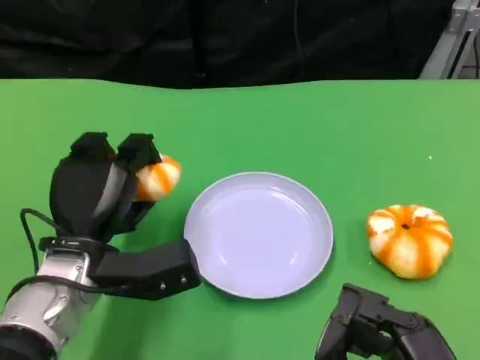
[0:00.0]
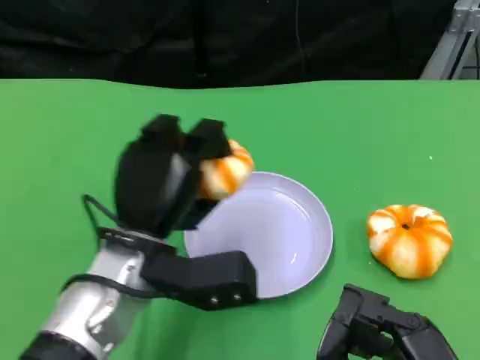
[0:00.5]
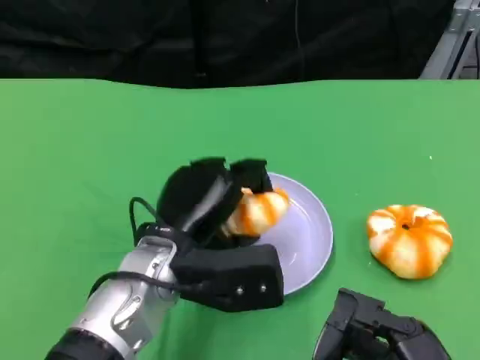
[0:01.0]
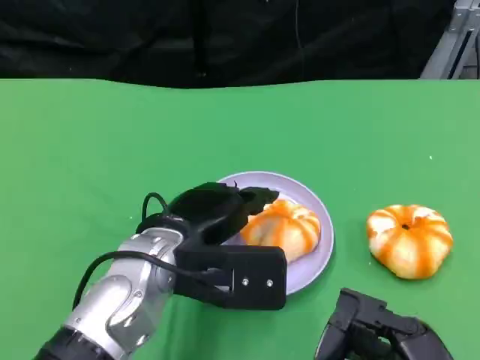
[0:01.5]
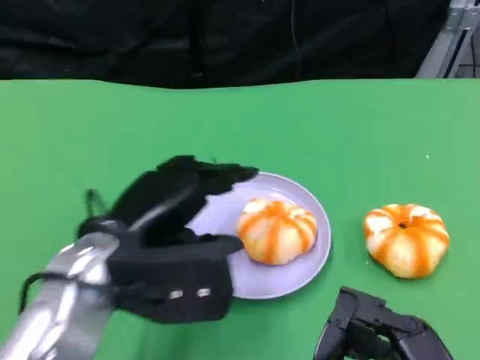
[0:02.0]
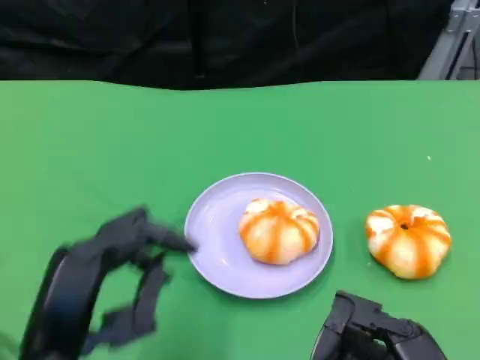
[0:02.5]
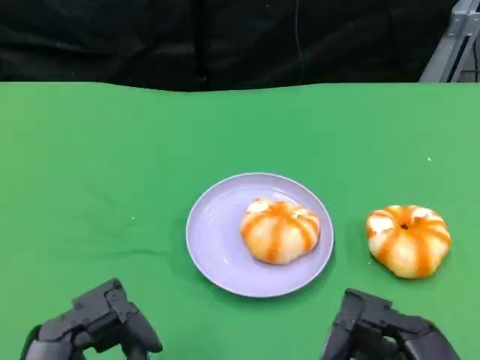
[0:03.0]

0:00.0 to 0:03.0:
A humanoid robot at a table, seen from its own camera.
Task of the whole recording: Grasp the bread from the table and place it into the plate.
0:00.0 to 0:01.5: The left hand goes roughly 5 cm to the right.
0:01.5 to 0:03.0: The left hand travels backward and to the left by some 20 cm.

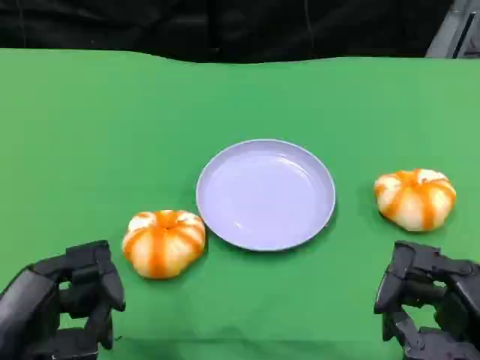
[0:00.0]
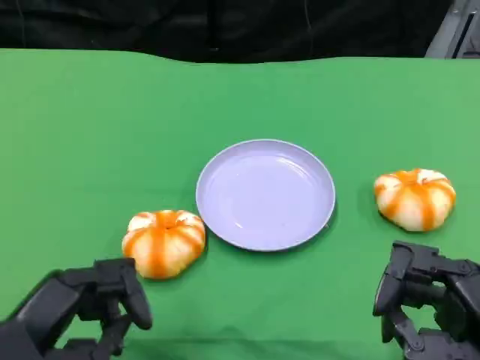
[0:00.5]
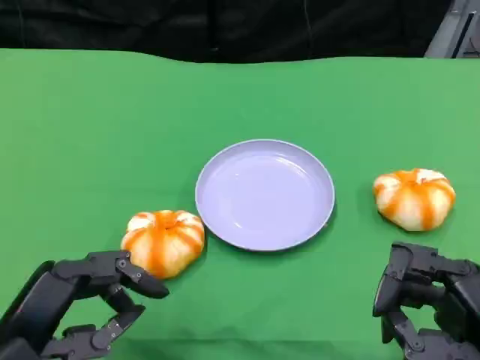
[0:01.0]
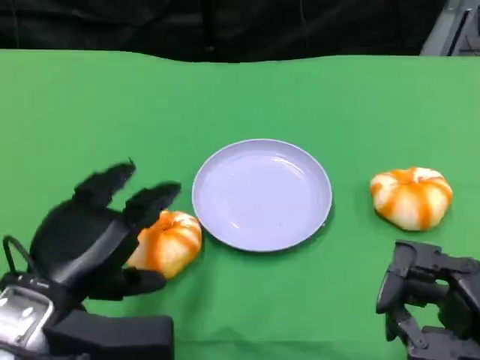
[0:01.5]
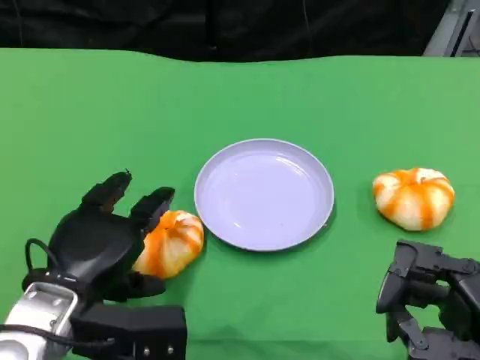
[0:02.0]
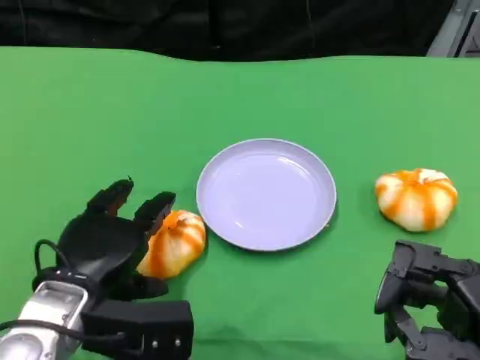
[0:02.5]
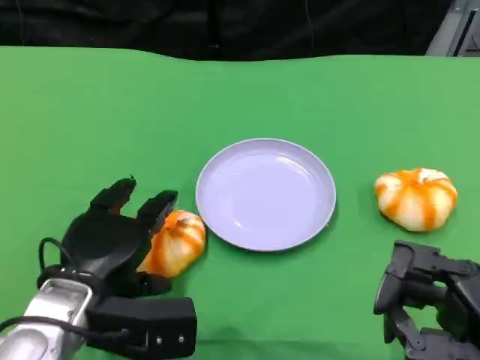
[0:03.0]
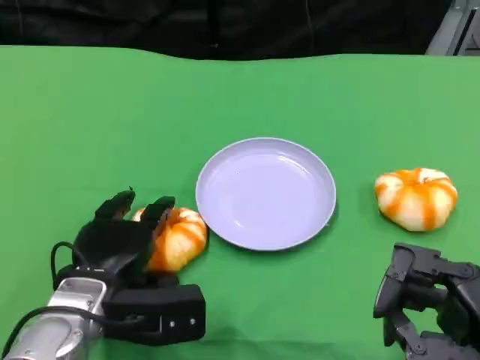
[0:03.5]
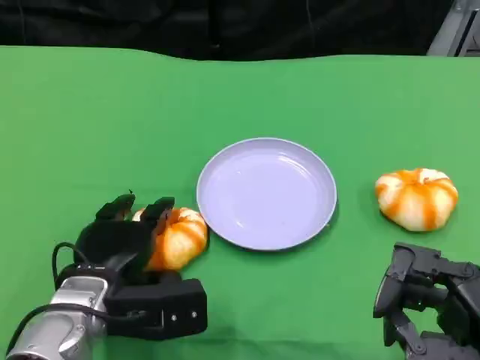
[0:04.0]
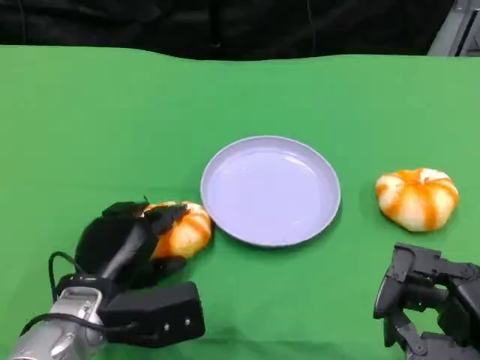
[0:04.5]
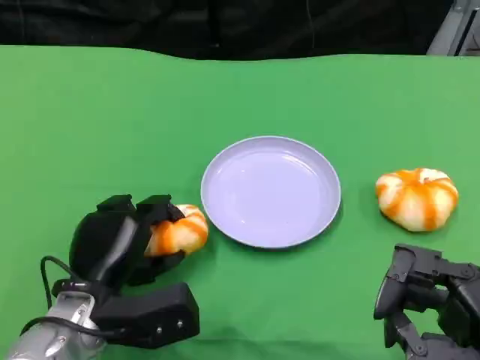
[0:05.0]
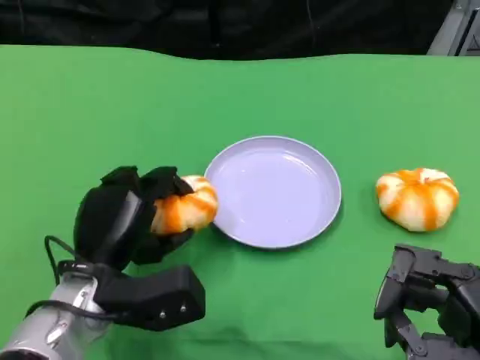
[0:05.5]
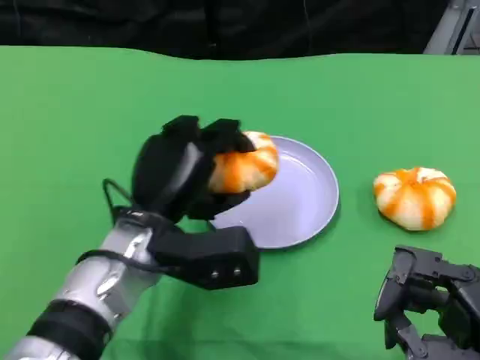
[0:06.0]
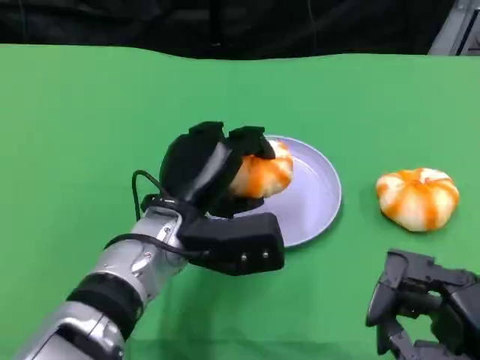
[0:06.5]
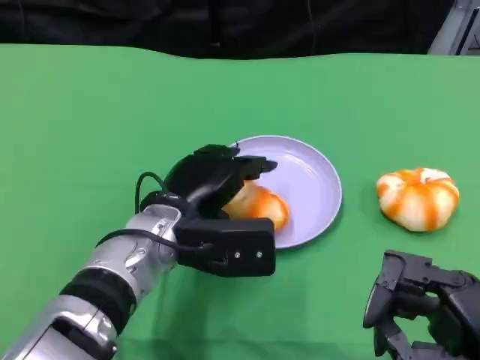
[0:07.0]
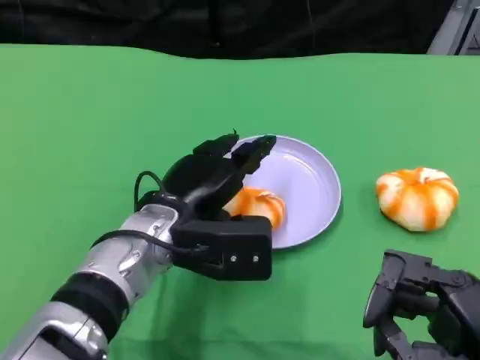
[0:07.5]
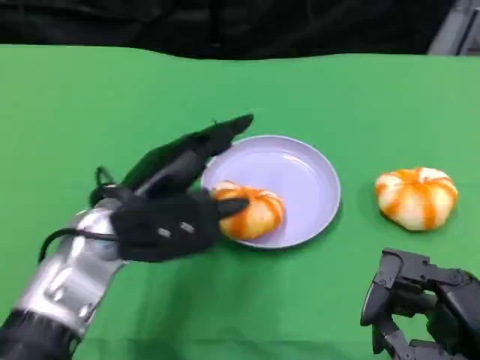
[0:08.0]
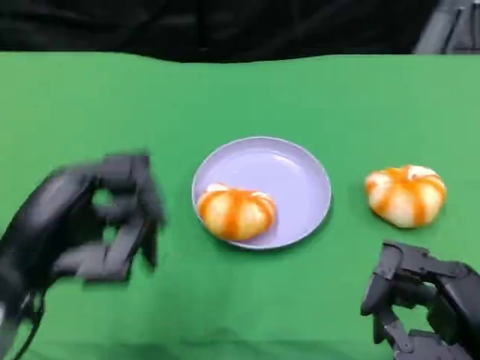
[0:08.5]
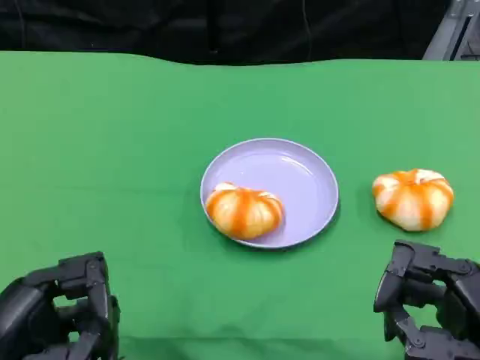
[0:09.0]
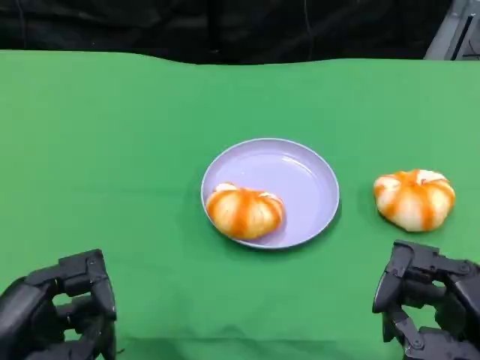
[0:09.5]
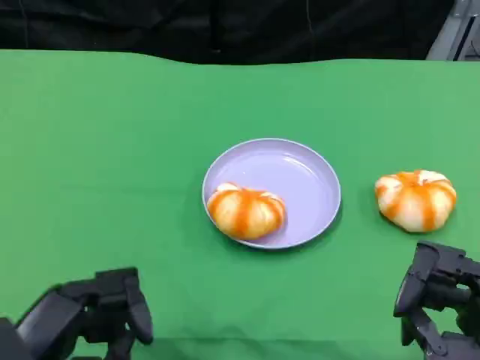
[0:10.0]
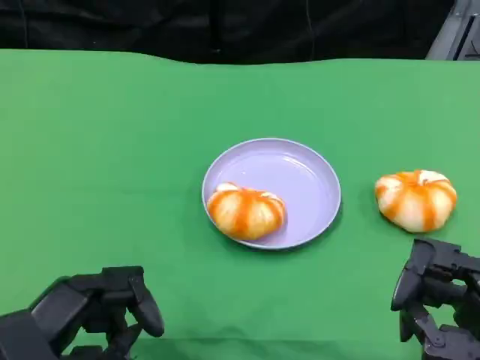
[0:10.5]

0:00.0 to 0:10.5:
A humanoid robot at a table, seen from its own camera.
Task of the whole recording: Grasp the bread from the table and place it into the plate.
0:00.0 to 0:02.0: The left hand heads forward and to the right, covering some 10 cm.
0:02.0 to 0:04.0: The left hand changes place by roughly 5 cm.
0:04.0 to 0:06.5: The left hand heads to the right, covering about 10 cm.
0:06.5 to 0:08.5: The left hand travels to the left, backward and upward by about 20 cm.
0:08.5 to 0:10.5: The left hand moves approximately 5 cm.

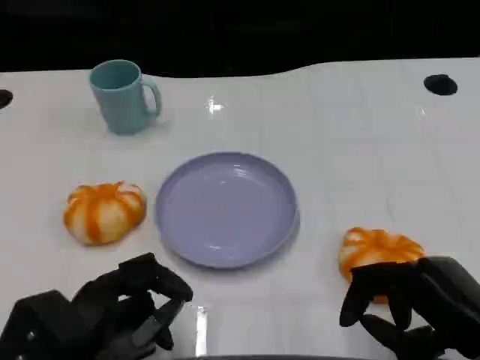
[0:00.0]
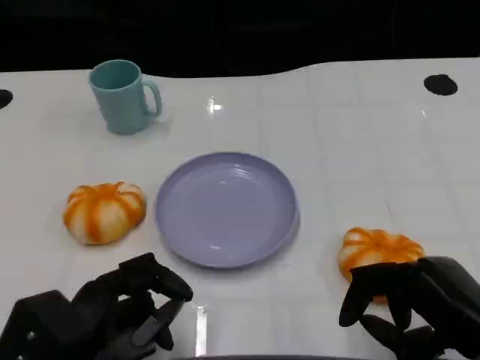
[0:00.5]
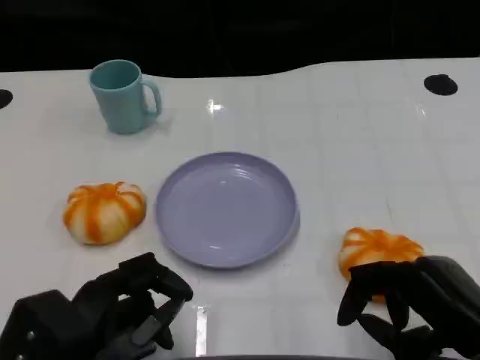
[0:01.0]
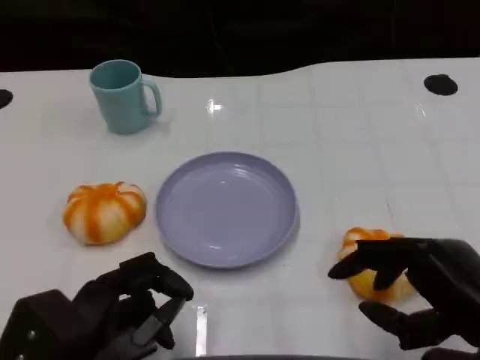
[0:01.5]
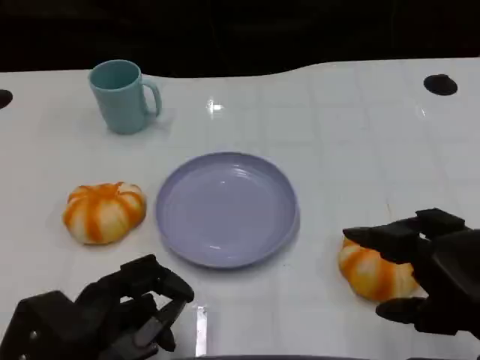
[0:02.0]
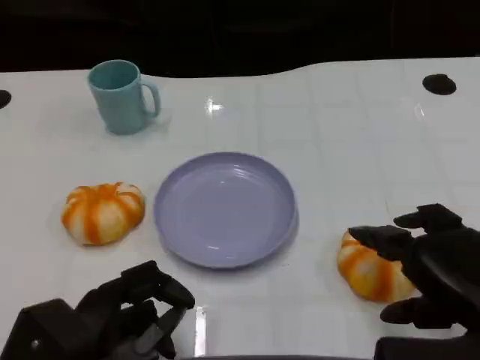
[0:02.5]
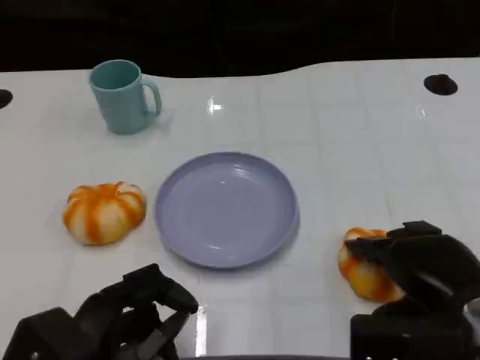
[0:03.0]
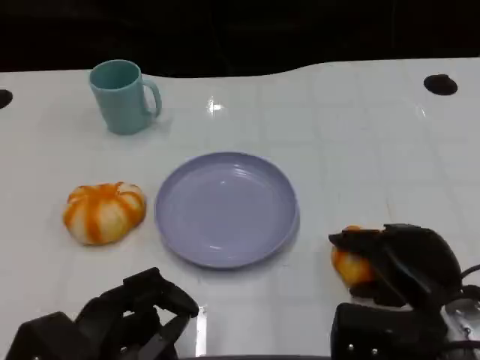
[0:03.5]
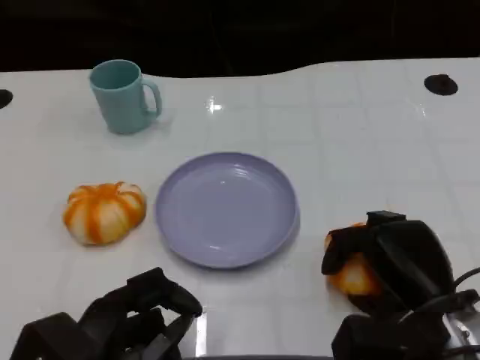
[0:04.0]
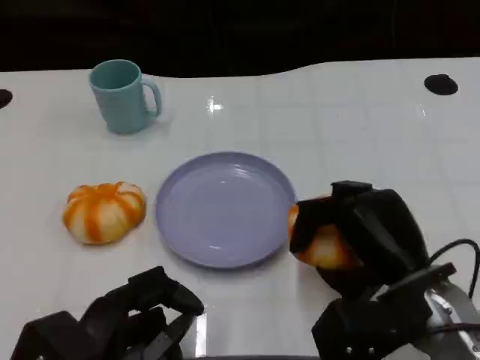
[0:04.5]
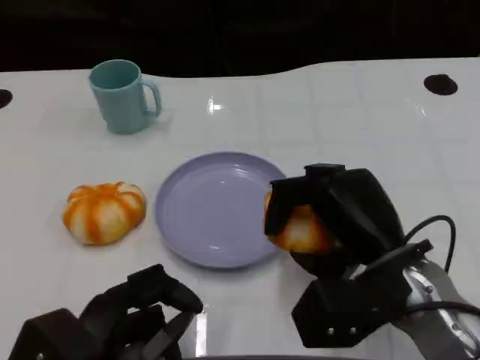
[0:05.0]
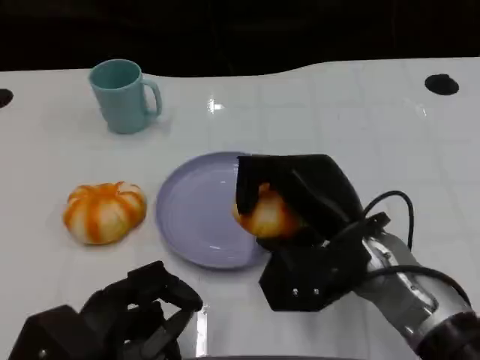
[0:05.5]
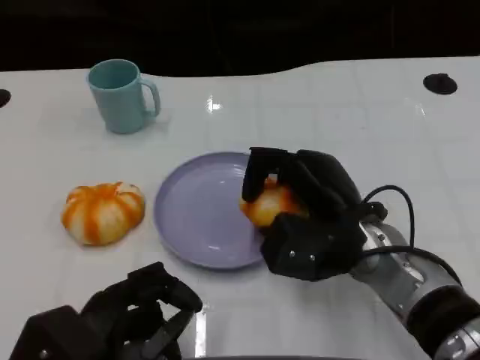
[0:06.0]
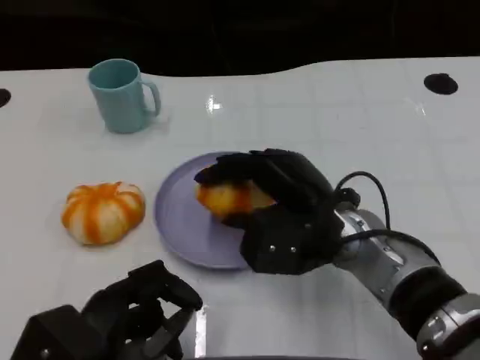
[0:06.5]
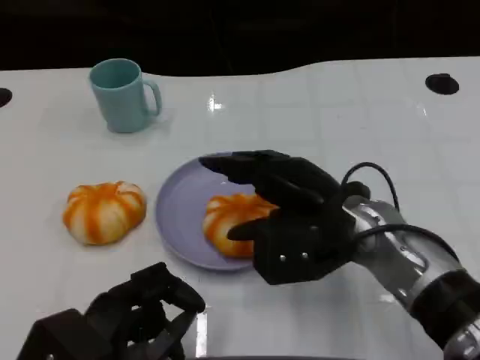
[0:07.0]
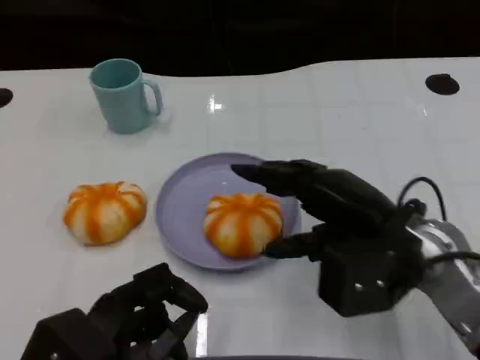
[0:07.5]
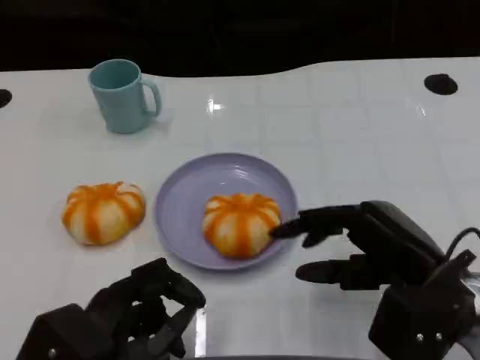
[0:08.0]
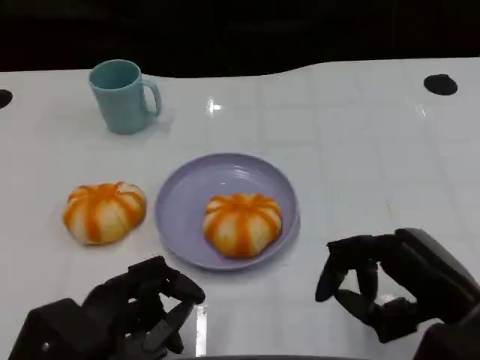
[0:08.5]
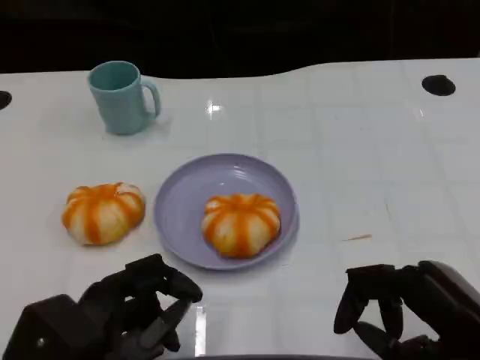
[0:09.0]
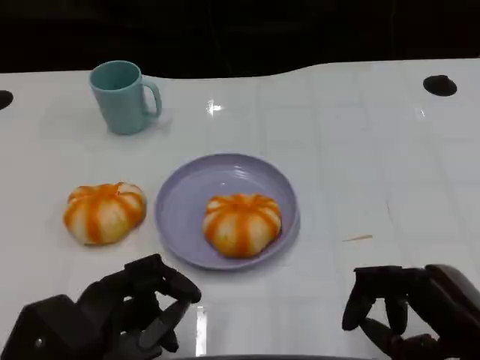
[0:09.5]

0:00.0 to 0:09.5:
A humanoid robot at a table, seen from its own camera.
Task of the whole recording: Grasp the bread from the table and place it into the plate.
0:02.0 to 0:04.0: The right hand heads downward and forward, covering some 10 cm.
0:04.0 to 0:05.5: The right hand moves to the left and forward, some 10 cm.
0:05.5 to 0:07.5: The right hand shifts some 5 cm to the right.
0:07.5 to 0:09.5: The right hand is displaced backward and to the right by about 15 cm.
